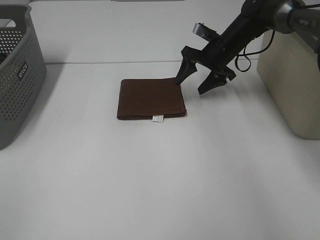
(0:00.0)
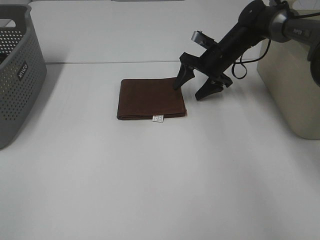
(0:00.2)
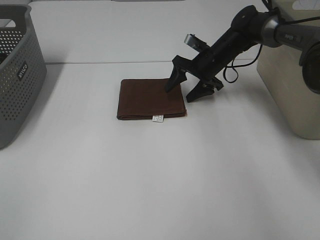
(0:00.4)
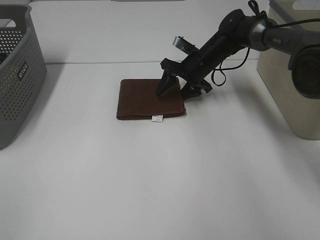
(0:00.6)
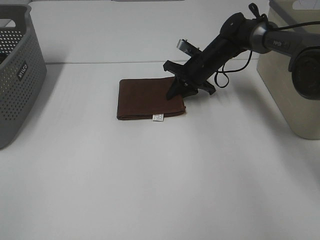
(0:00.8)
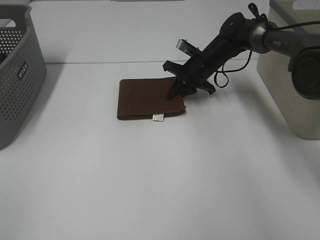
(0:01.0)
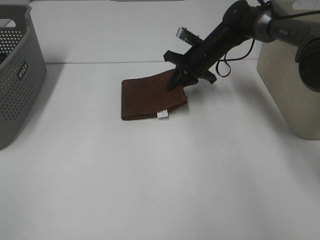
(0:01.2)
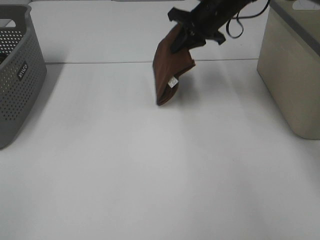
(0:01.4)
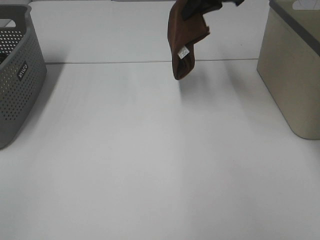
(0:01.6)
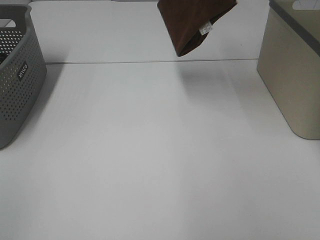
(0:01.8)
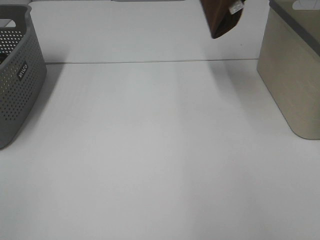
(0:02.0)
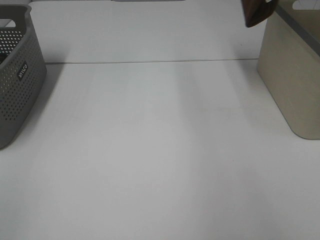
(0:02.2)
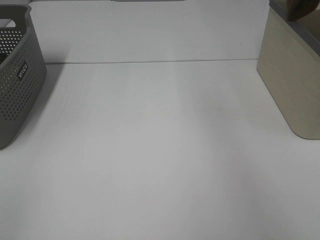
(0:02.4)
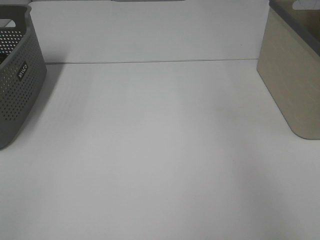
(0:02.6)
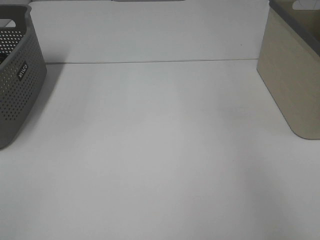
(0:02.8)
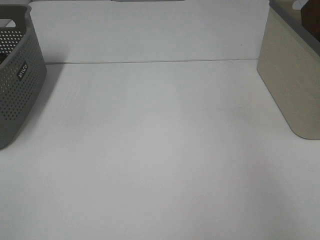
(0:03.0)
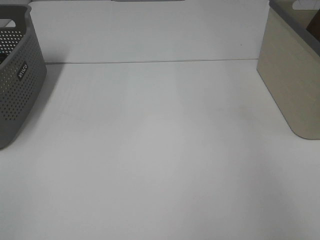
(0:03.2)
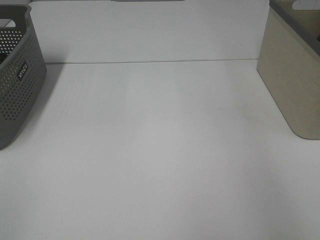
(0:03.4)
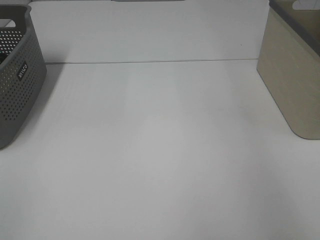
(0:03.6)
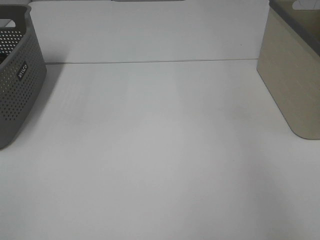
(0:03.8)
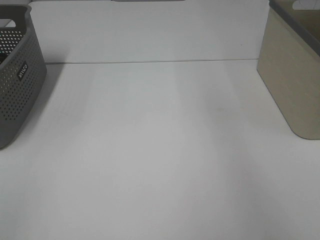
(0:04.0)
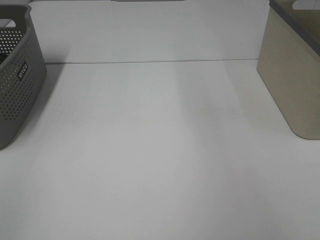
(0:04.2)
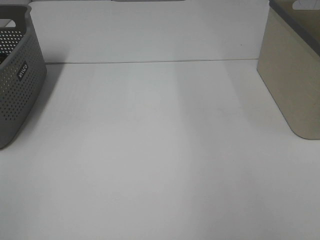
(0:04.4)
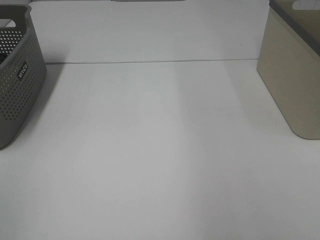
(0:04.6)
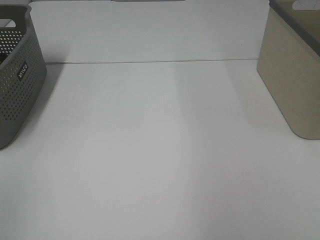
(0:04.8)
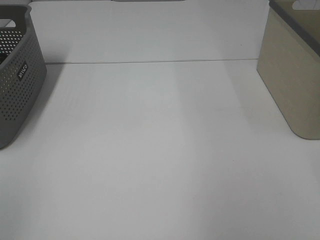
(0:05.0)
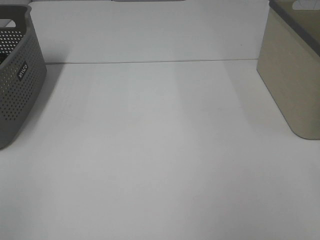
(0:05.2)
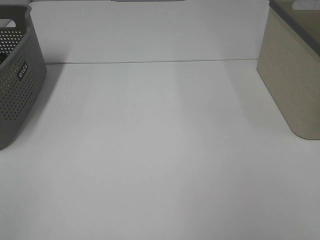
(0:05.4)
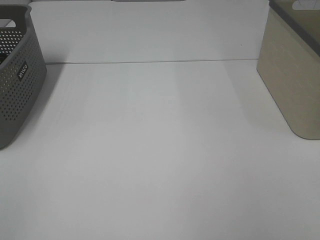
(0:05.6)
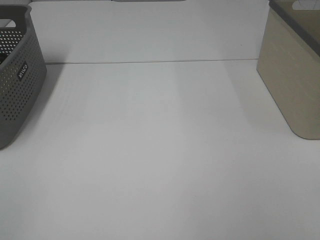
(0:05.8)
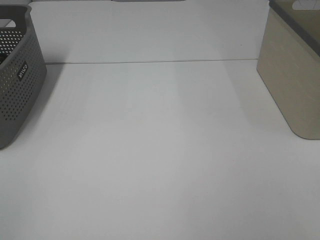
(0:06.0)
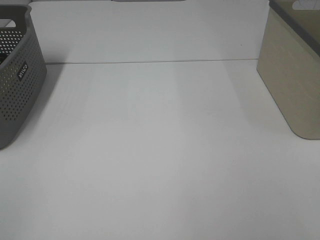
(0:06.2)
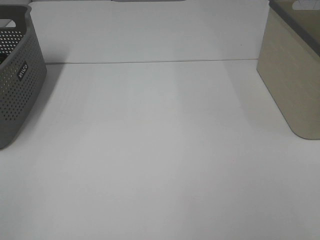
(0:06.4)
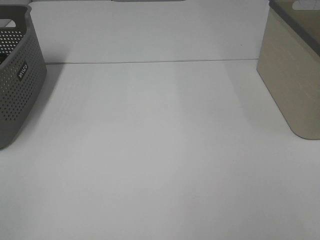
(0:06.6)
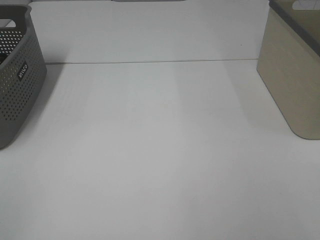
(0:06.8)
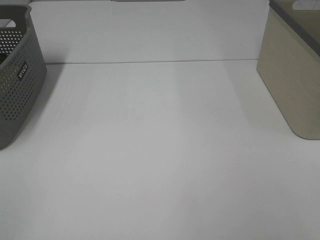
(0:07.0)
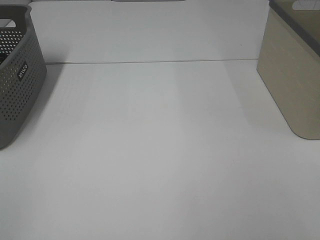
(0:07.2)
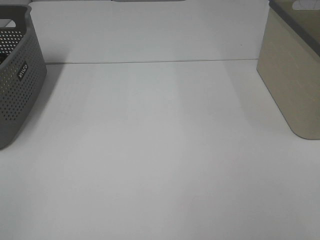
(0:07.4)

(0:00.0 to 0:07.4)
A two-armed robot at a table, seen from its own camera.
Step, 0:01.2 - 0:03.6: Right hand: place the brown towel in right basket.
0:00.0 - 0:01.4: The right gripper travels upward by some 10 cm, and closes up.
0:01.4 - 0:03.0: The right gripper travels to the right and upward by about 30 cm.
0:03.0 - 0:04.4: The right gripper moves to the left, backward and upward, roughly 15 cm, and opens its fingers.

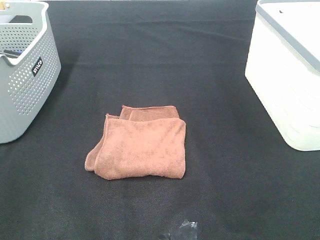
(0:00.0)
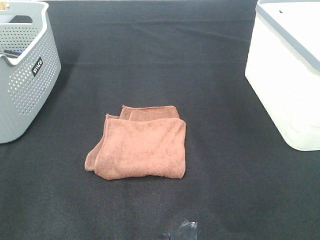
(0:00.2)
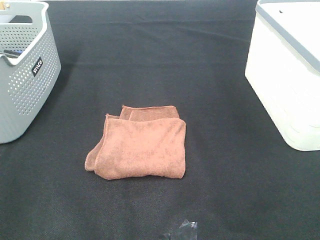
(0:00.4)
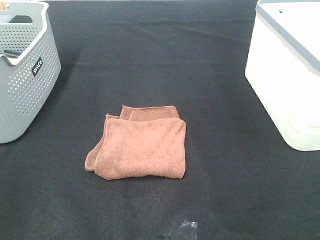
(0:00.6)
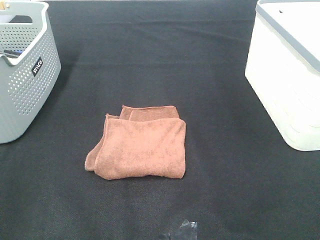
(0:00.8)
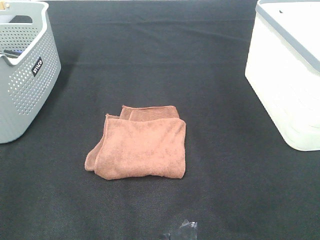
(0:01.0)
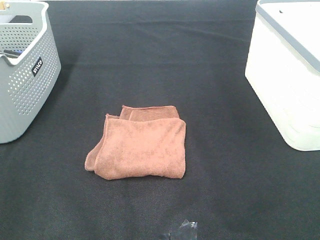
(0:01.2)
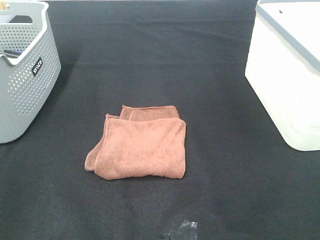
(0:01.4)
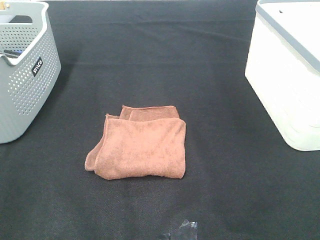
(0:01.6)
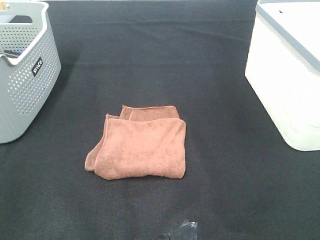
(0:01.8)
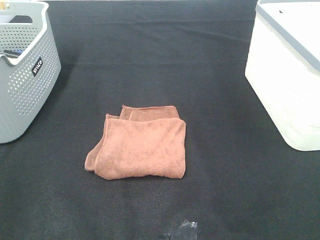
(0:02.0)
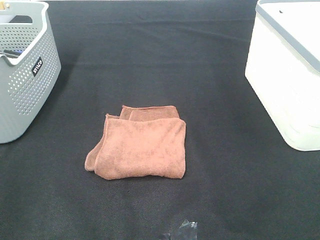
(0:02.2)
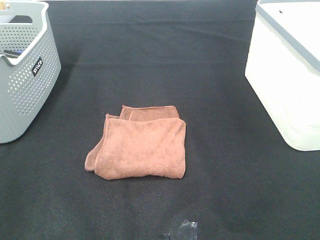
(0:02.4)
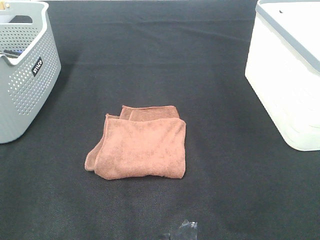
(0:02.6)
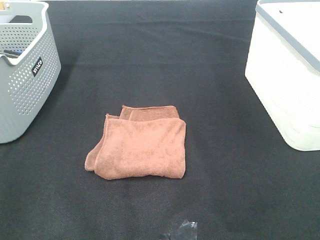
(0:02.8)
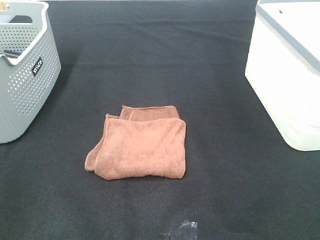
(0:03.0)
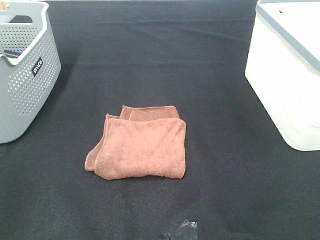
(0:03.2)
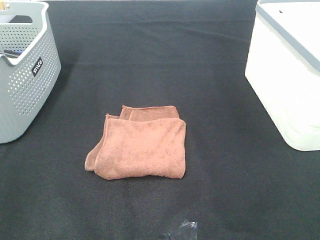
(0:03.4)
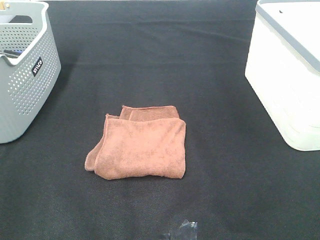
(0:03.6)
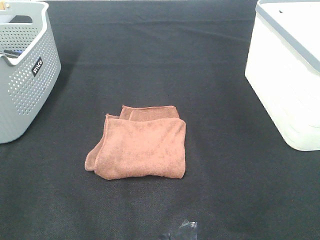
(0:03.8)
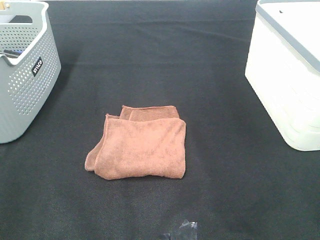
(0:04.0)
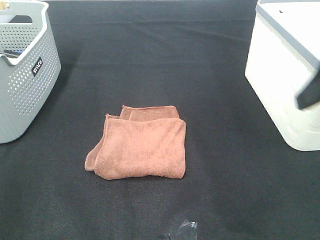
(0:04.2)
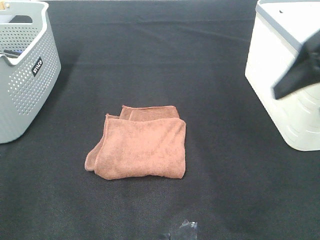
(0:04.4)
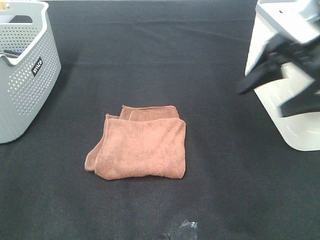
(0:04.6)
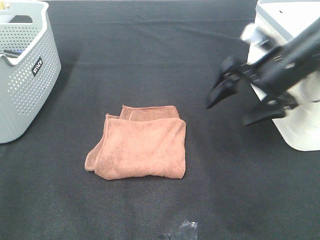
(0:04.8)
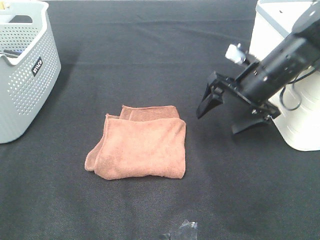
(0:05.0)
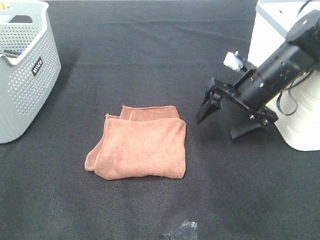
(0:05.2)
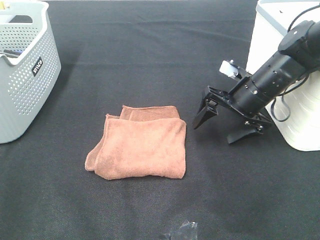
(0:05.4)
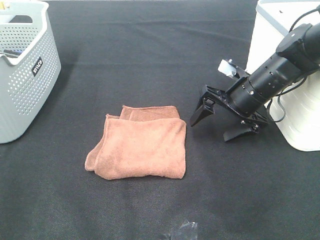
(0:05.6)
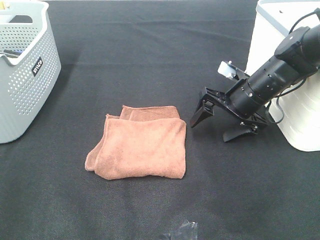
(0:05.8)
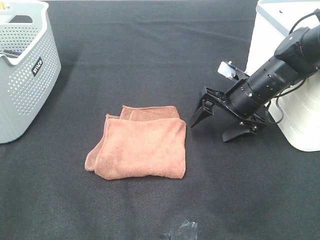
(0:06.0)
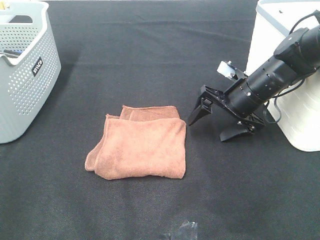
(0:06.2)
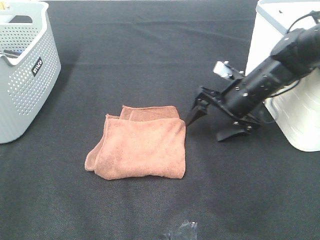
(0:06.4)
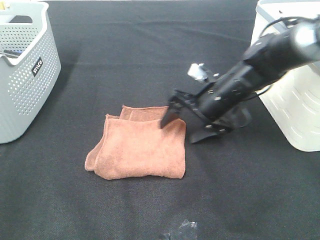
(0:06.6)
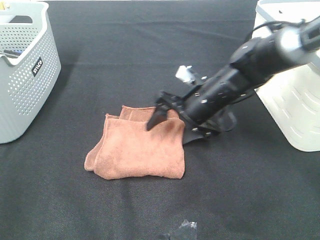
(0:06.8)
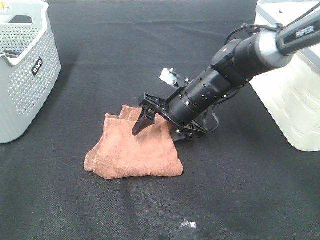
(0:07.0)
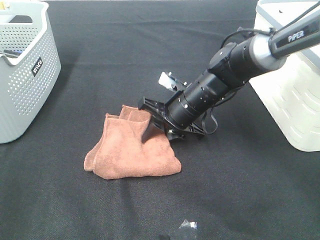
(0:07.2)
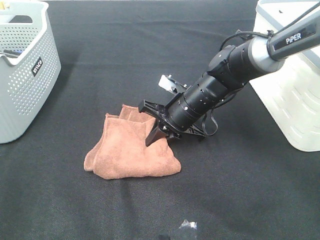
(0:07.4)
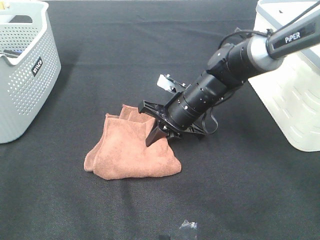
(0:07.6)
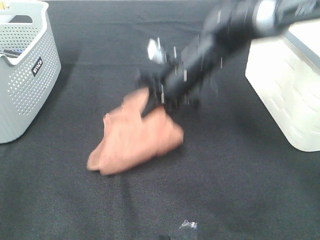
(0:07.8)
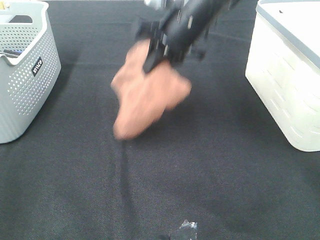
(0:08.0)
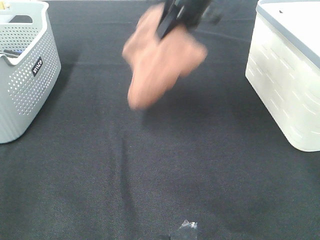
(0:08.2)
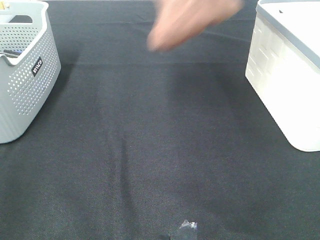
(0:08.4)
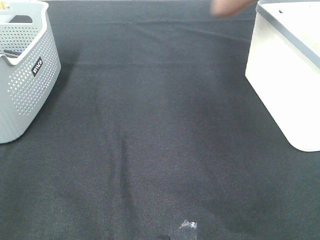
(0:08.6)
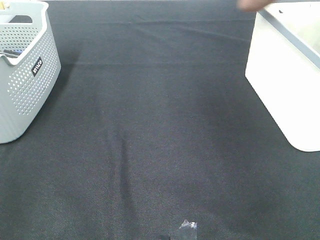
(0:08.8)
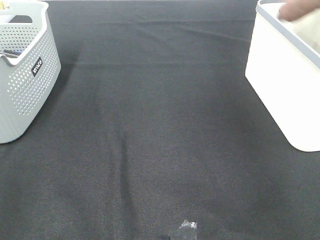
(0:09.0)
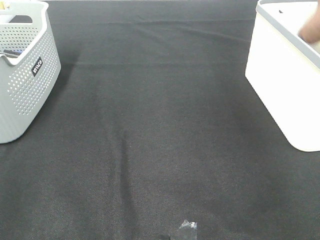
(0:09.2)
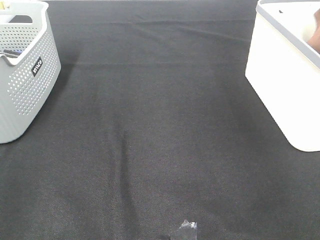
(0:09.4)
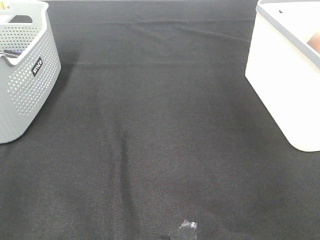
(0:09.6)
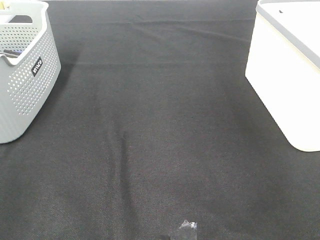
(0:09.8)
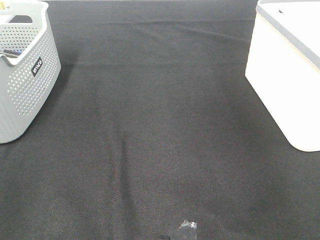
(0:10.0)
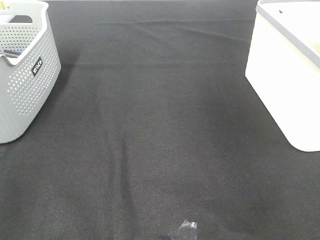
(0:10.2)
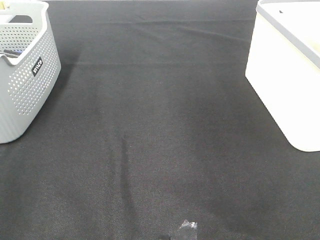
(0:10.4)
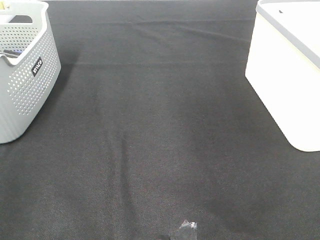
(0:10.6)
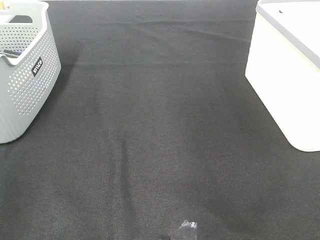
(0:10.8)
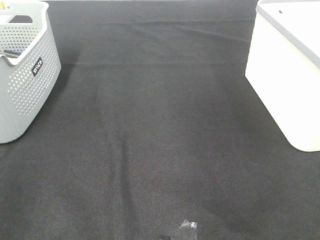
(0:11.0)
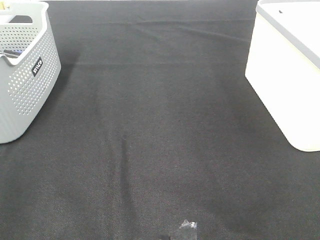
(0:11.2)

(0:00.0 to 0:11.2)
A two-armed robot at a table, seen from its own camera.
Step, 0:00.0 - 0:07.4: Right hand: grab the folded brown towel.
Step, 0:07.6 - 0:09.6: Right hand: place the brown towel in right basket.
0:00.0 - 0:03.2: Neither gripper changes place.
0:03.2 - 0:04.8: The right gripper goes some 35 cm forward.
0:04.8 - 0:06.4: The right gripper moves downward, approximately 10 cm.
0:06.4 - 0:08.0: The right gripper heads upward and to the left, covering some 20 cm, and closes its fingers.
0:08.0 - 0:09.6: The right gripper is displaced to the right by approximately 35 cm, and opens its fingers.

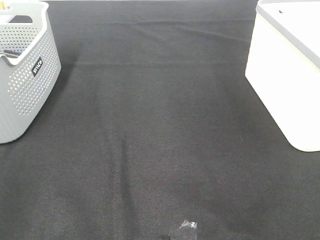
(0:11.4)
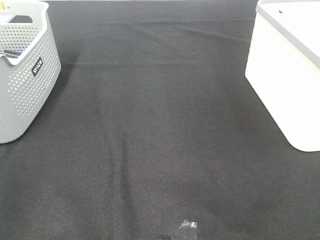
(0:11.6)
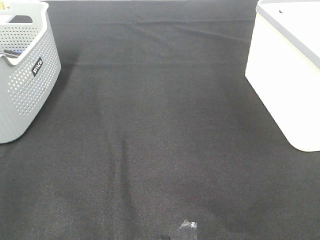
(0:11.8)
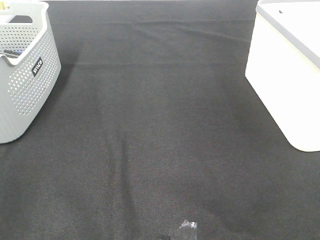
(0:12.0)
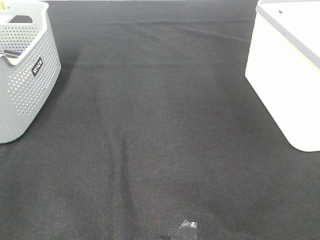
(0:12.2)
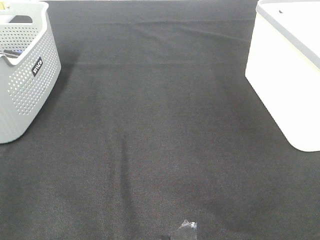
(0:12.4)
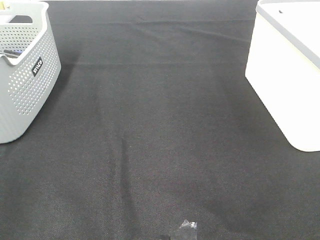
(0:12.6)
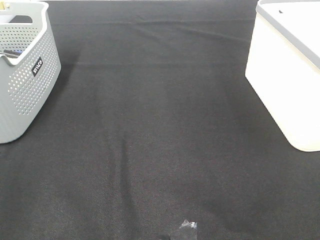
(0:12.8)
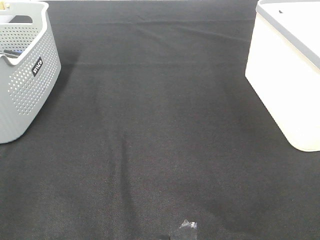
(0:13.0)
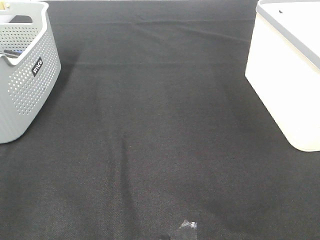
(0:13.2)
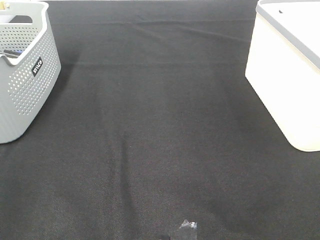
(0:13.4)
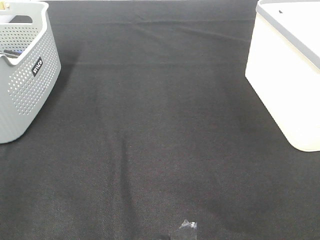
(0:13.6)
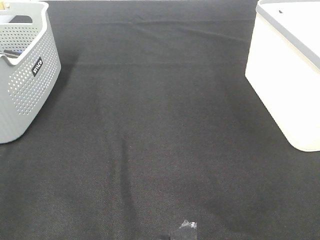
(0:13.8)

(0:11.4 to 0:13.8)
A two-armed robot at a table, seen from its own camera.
0:12.6 - 0:13.8: Both grippers stay put.

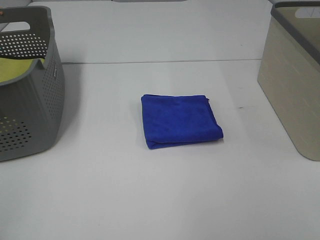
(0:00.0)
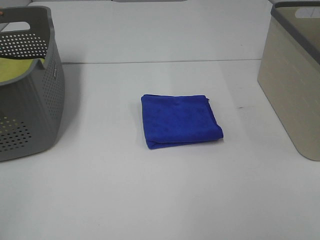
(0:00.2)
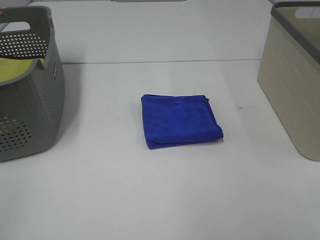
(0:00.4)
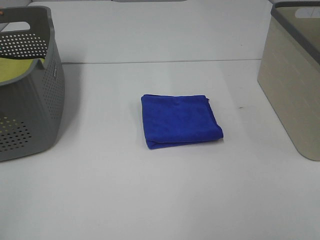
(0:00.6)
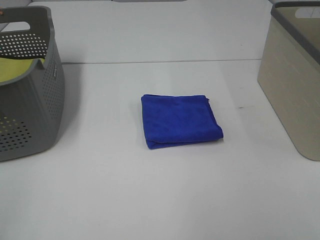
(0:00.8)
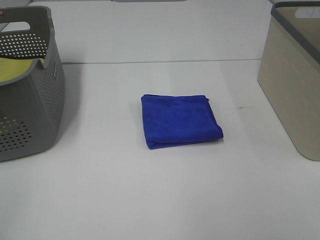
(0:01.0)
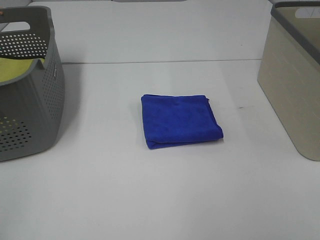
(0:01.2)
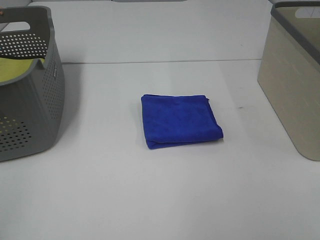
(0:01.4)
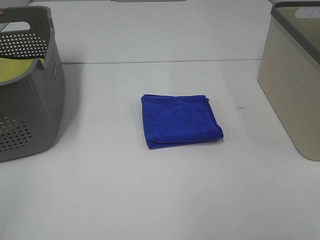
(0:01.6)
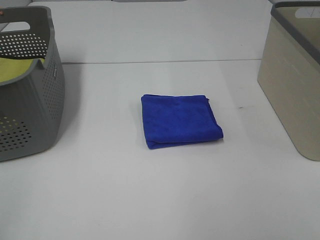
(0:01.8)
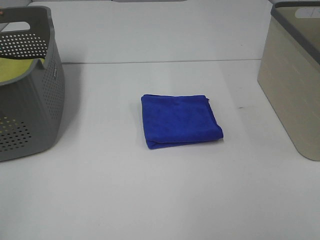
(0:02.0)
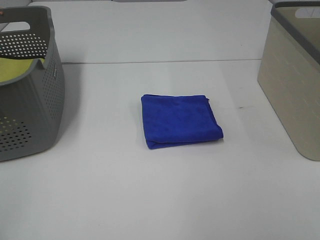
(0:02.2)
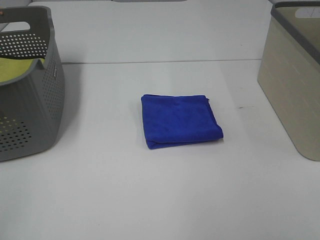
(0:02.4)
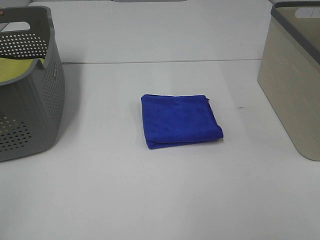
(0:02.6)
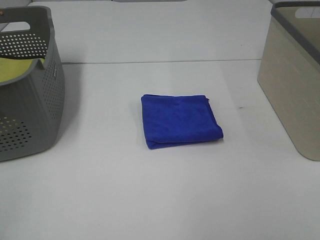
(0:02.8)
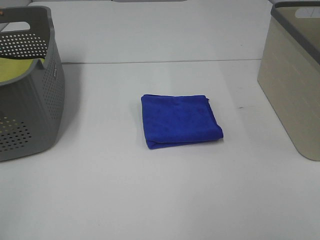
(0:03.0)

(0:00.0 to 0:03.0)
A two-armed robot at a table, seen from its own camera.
0:00.0 - 0:03.0: Both grippers stay about where they are.
